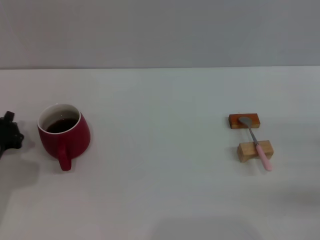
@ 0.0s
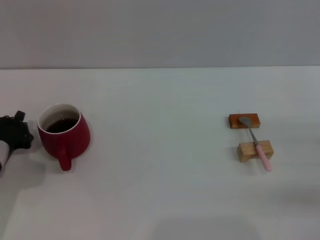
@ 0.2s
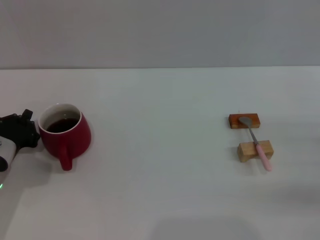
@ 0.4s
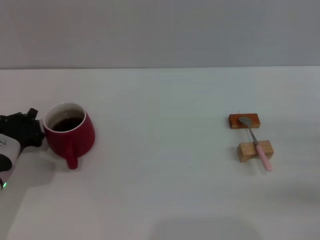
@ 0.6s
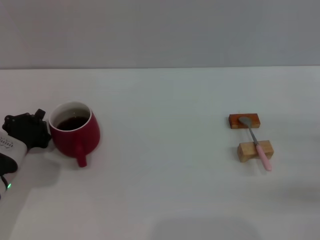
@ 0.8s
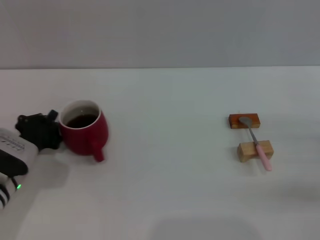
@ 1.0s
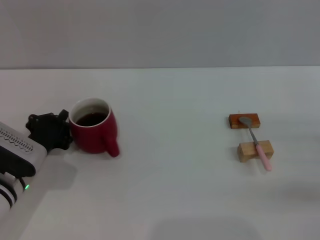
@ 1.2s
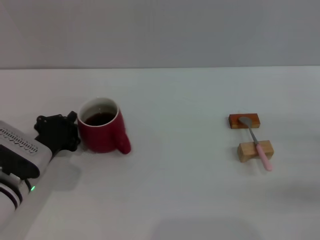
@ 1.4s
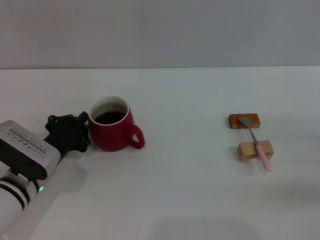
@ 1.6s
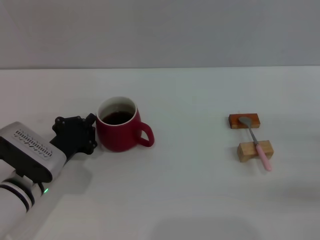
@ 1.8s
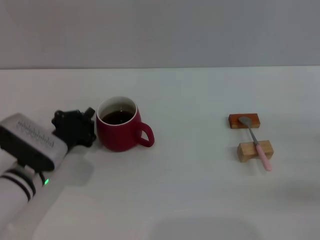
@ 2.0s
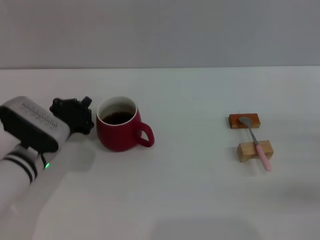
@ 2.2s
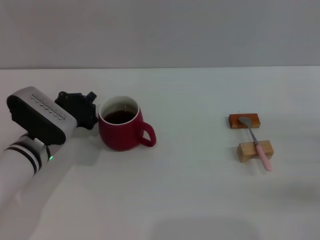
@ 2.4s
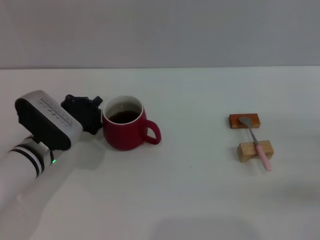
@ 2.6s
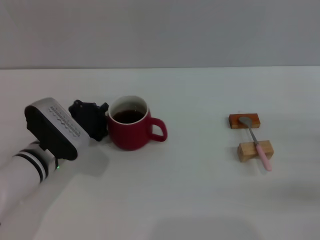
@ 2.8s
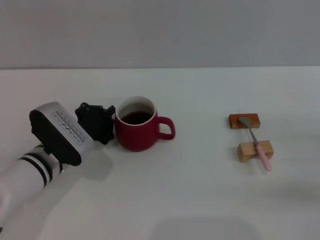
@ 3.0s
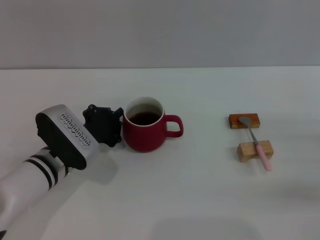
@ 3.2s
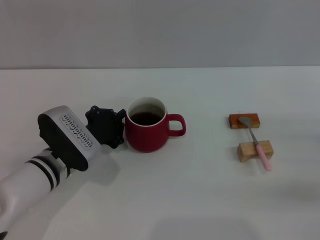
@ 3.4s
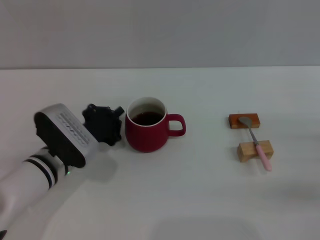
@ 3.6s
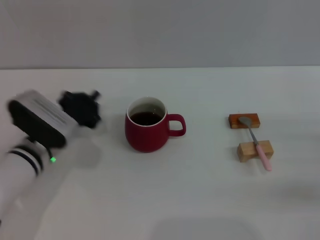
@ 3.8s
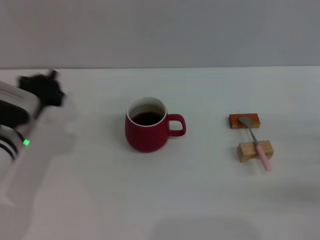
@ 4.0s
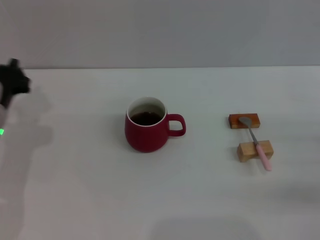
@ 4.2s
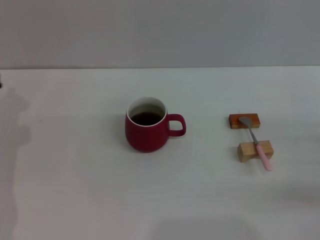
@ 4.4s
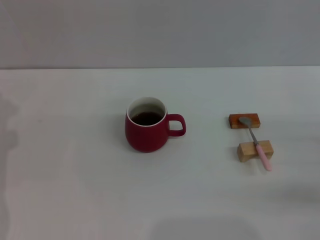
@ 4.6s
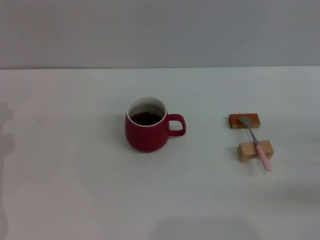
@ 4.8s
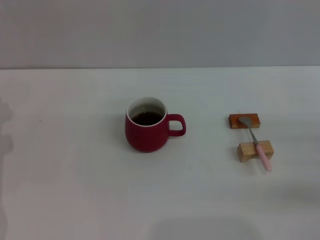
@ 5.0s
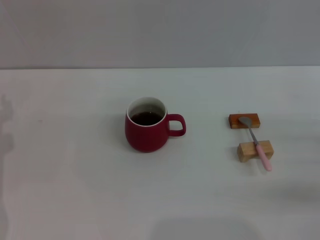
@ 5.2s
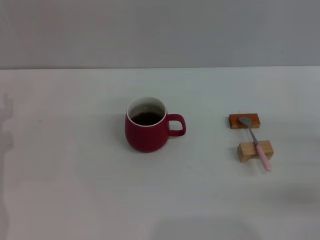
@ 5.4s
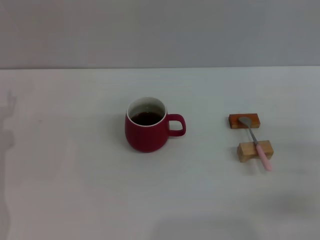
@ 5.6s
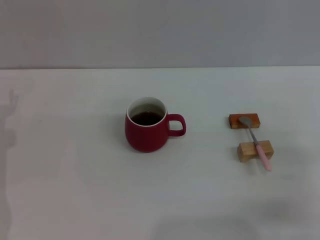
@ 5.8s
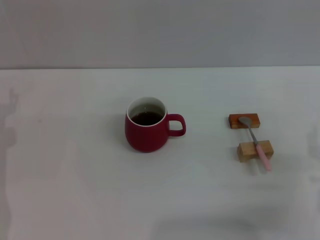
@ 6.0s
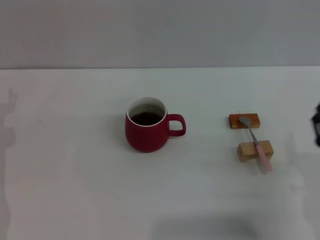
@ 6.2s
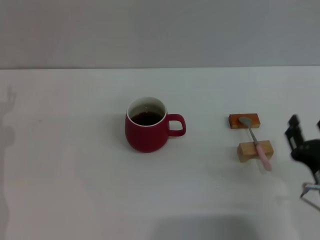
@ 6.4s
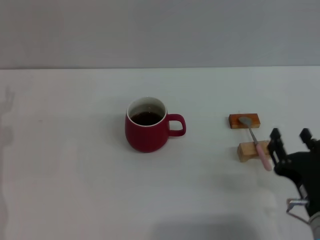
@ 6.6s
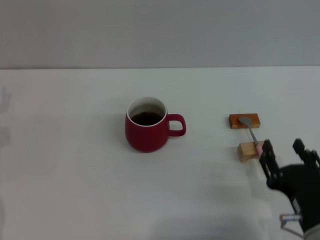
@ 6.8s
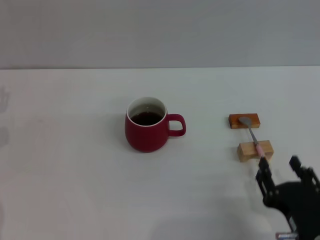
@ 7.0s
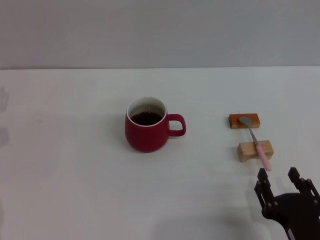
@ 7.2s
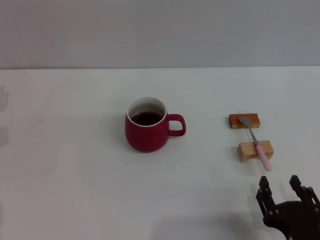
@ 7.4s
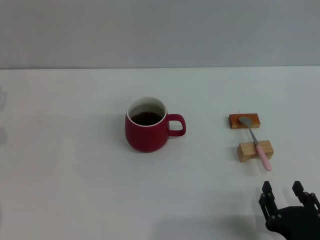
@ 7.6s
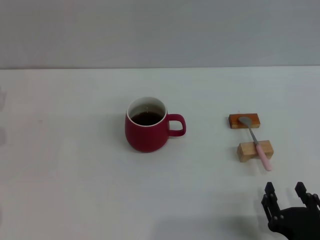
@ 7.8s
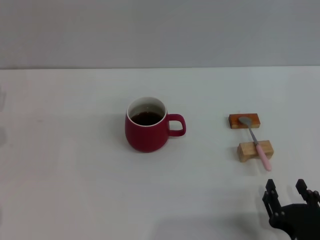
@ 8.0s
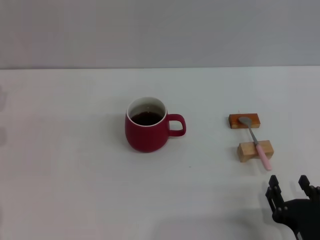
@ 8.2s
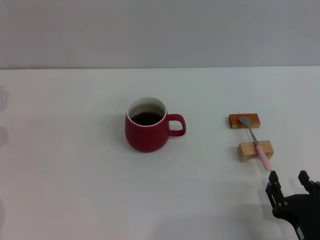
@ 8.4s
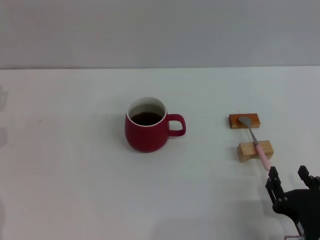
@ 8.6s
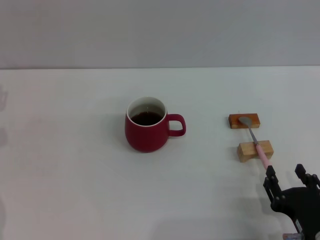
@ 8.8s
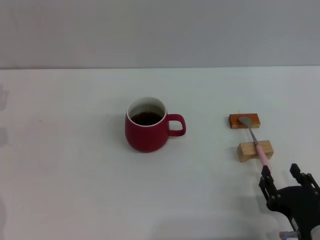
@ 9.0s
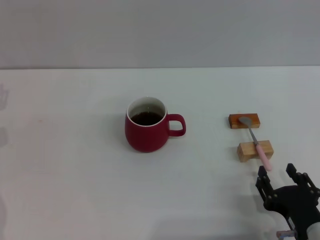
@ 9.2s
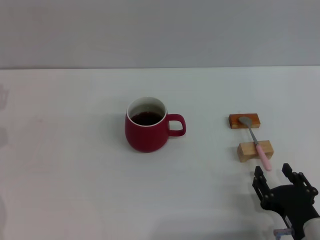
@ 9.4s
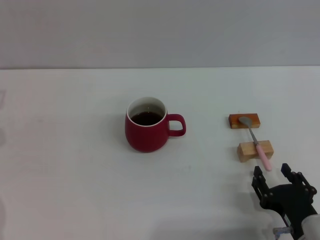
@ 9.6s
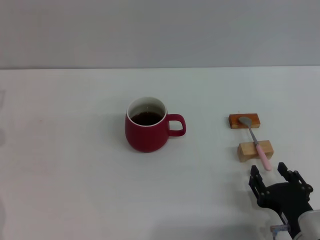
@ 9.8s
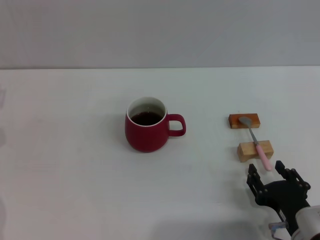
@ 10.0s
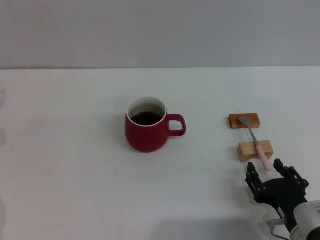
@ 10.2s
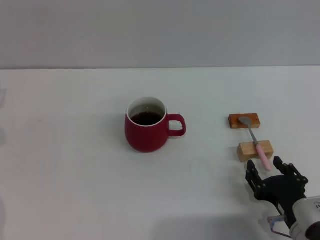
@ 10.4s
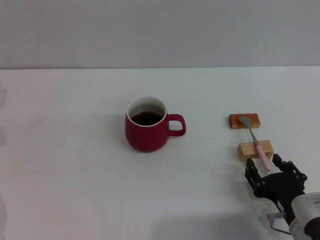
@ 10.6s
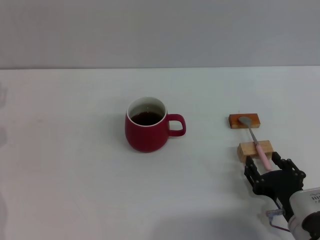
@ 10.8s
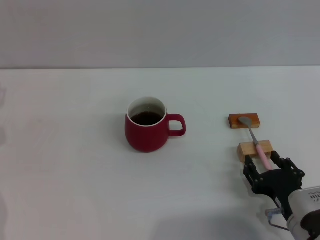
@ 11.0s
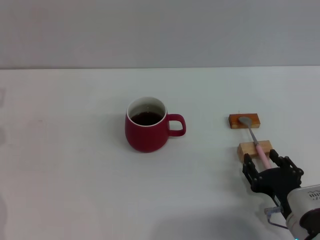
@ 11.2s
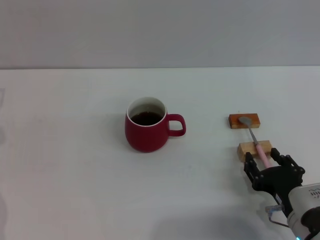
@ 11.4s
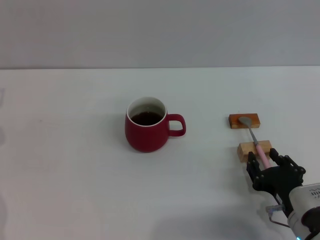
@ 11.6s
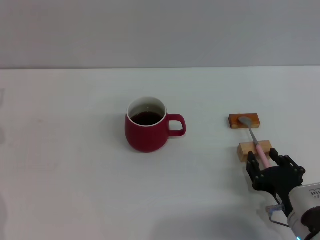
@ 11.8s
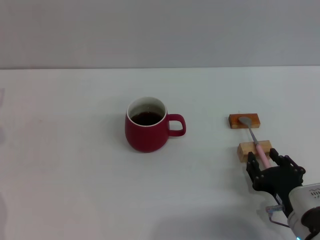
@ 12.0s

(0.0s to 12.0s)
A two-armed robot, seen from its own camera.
Task of the whole recording: Move the red cup to the center, lift the pink spoon, stir it three times in the cup, and put the spoon into the cup.
0.0s - 1.6s: The left gripper is displaced to the right by roughly 10 cm.
1.6s - 3.0s: The grippers stay close to where they were, moving slightly.
3.0s - 4.4s: The left gripper shifts roughly 10 cm to the left.
4.4s - 6.0s: The right gripper moves to the left and backward, some 10 cm.
6.0s - 7.6s: The right gripper is displaced backward and to the left by roughly 15 cm.
7.6s - 9.0s: The grippers make only small movements.
9.0s - 12.0s: The grippers make only small movements.

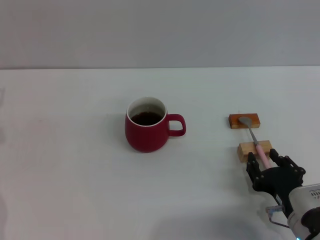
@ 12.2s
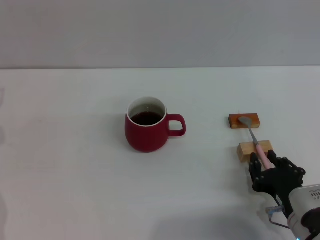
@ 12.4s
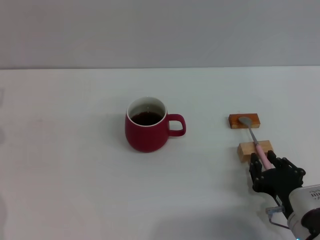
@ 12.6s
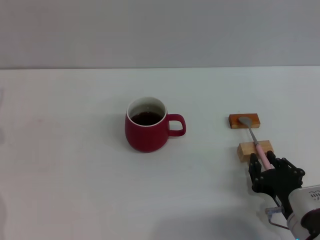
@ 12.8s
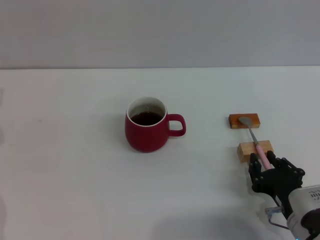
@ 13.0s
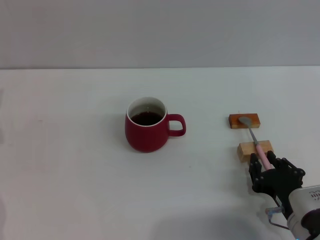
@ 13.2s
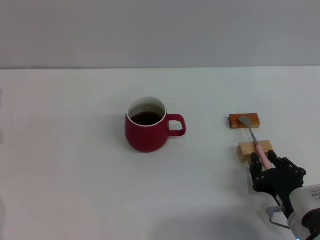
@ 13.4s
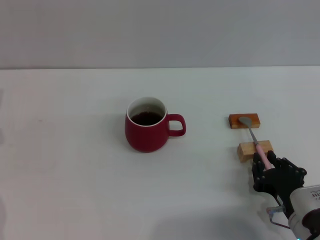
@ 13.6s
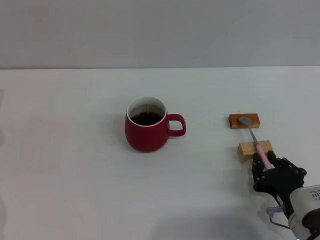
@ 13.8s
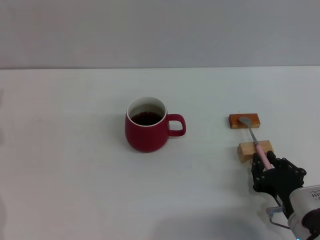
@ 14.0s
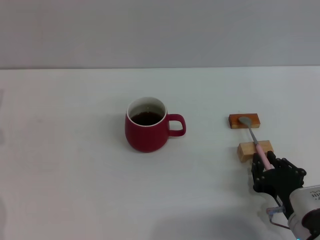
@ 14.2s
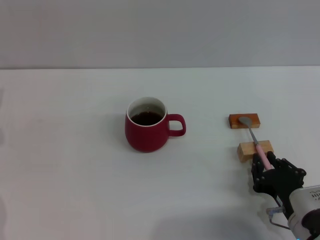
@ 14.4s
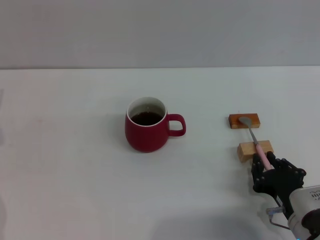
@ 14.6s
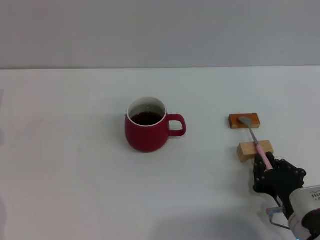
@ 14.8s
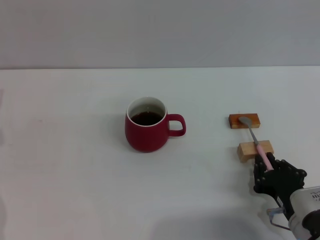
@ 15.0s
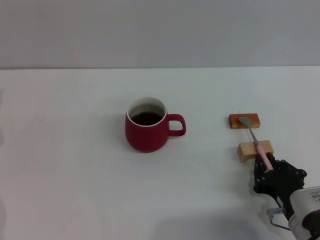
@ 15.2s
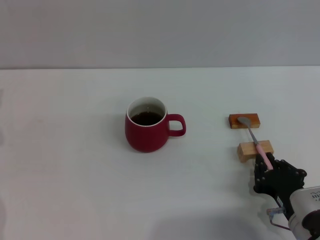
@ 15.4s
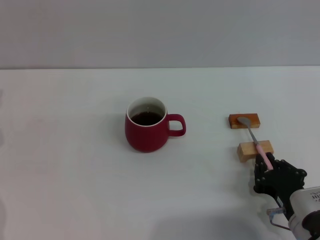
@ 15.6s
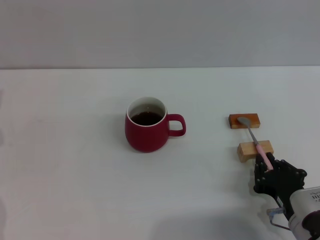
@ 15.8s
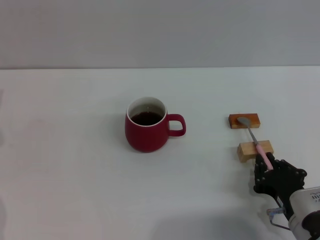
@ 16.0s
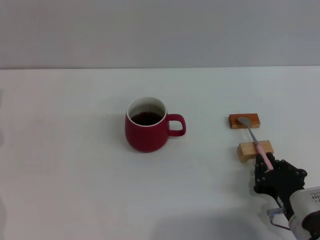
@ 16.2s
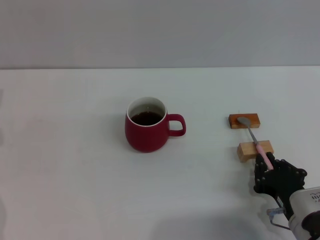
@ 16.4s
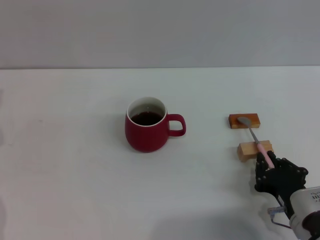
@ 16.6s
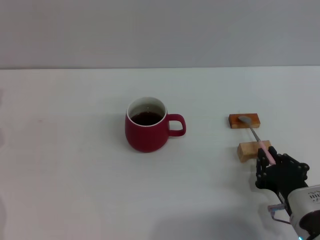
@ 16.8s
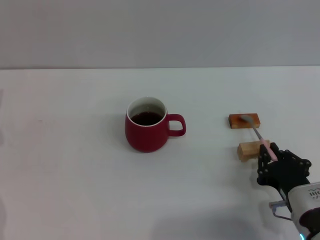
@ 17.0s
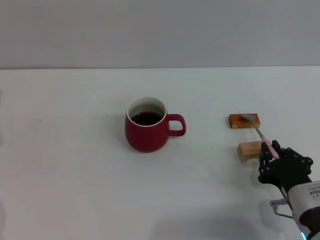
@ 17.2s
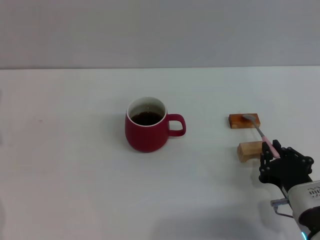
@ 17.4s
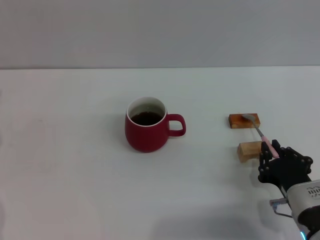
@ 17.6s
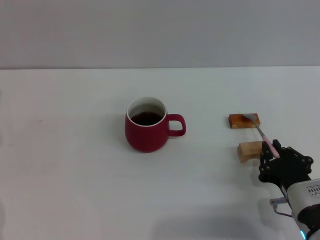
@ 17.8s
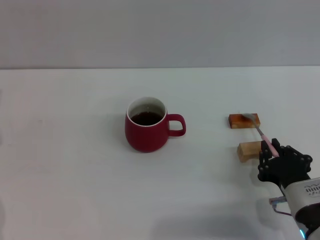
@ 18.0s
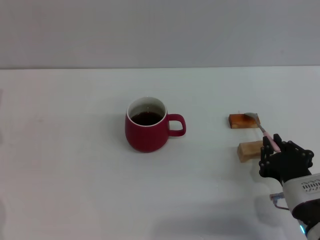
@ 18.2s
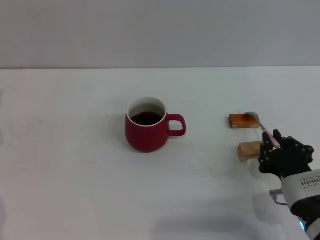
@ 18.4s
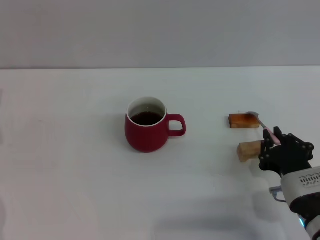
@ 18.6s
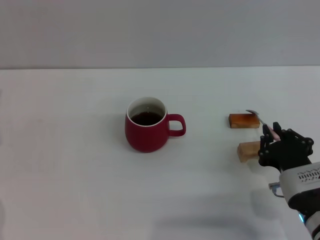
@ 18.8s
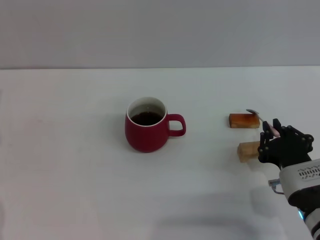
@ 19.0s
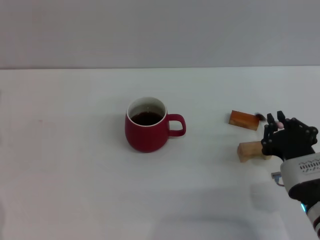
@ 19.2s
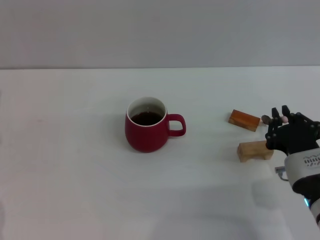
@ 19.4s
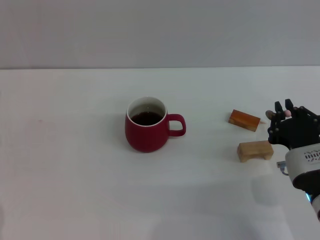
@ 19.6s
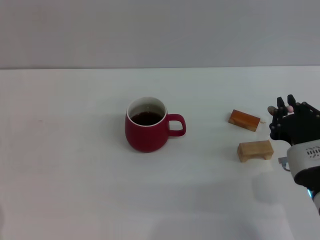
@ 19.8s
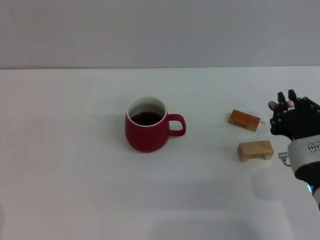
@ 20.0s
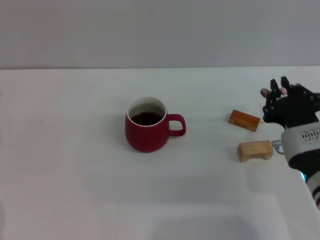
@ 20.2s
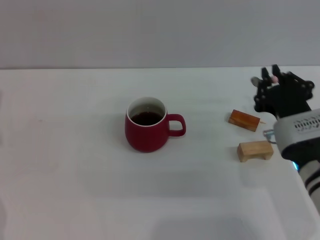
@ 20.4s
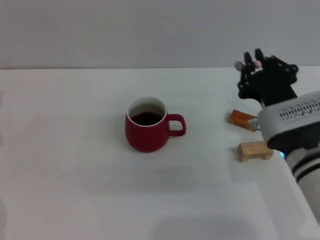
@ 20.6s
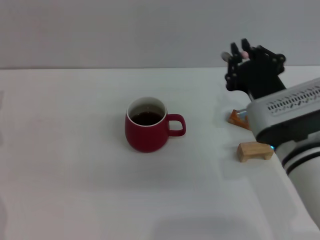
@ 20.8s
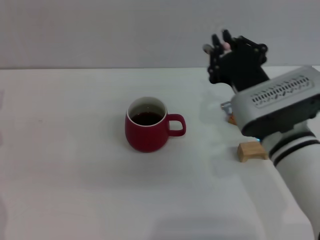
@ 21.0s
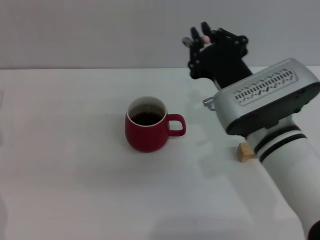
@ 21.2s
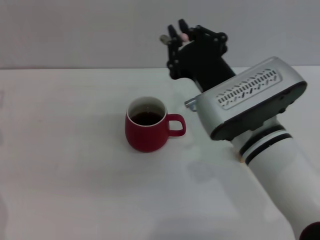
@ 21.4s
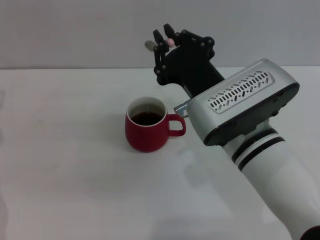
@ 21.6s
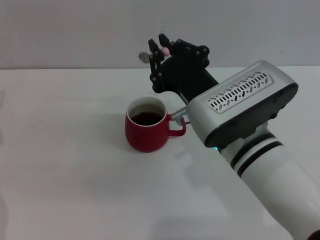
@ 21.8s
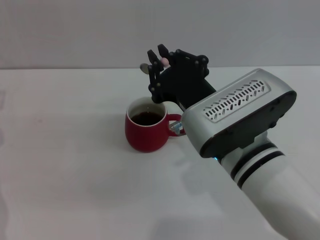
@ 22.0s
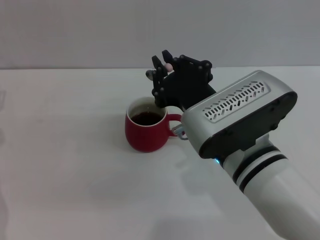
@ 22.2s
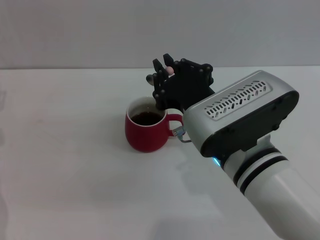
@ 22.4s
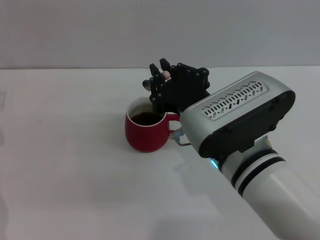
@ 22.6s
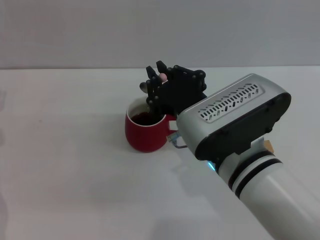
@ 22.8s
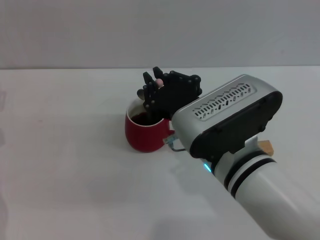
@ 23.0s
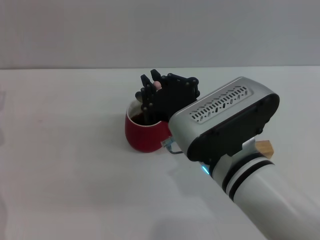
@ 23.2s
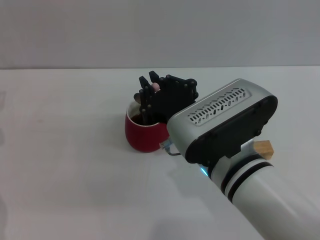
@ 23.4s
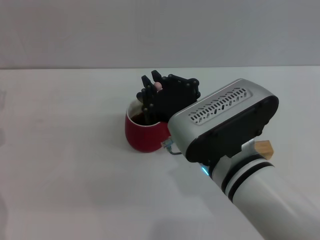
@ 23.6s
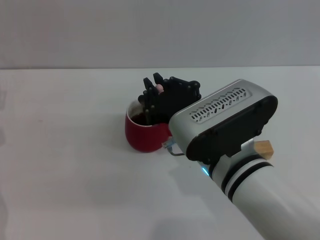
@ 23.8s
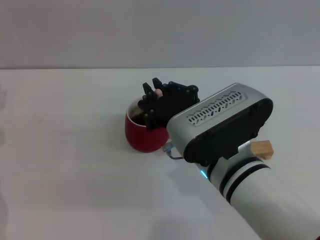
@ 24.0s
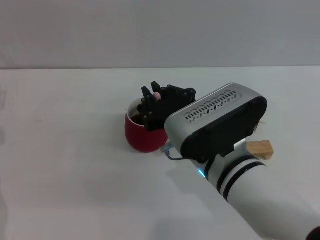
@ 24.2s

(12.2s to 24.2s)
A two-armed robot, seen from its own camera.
Task of the whole recording: Move the red cup to the center, lift the pink spoon, stir it three times in the cup, and put the spoon into the cup.
Step, 12.2s - 20.4s: Pick up the spoon with the left gripper.
12.2s - 13.8s: The right gripper closes up.
13.8s - 16.6s: Both grippers stay about where they are.
16.6s - 18.2s: The grippers stay close to where they were, moving slightly.
18.2s - 19.8s: The grippers stay close to where they were, moving slightly.
19.8s - 21.2s: The right gripper travels to the left and upward by some 10 cm.
21.2s - 22.6s: The right gripper shifts by approximately 5 cm.
22.6s - 24.2s: The grippers stay close to where they were, moving slightly.
